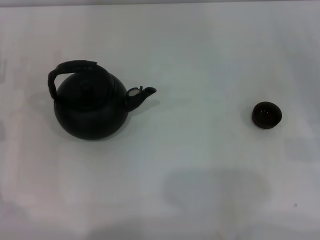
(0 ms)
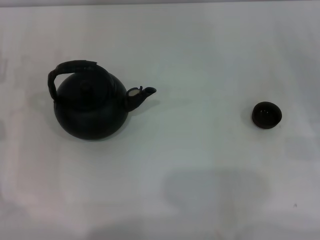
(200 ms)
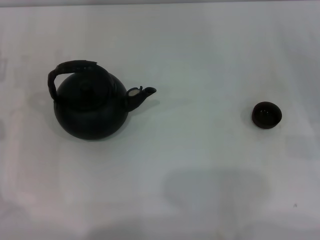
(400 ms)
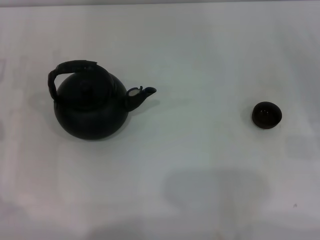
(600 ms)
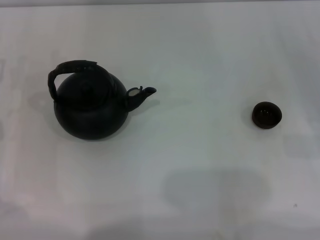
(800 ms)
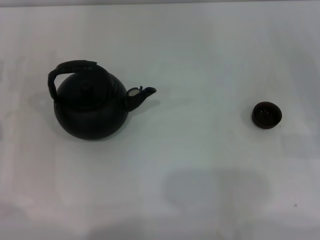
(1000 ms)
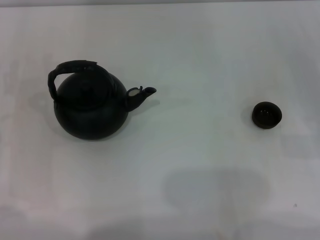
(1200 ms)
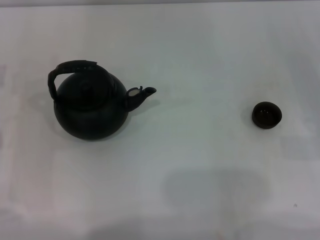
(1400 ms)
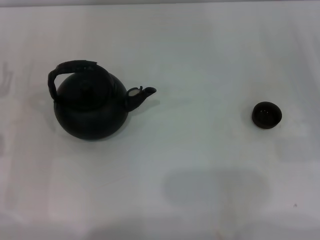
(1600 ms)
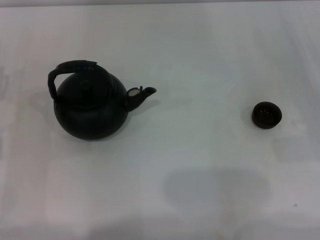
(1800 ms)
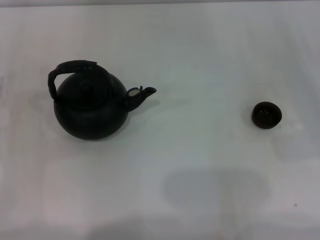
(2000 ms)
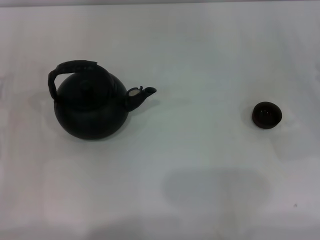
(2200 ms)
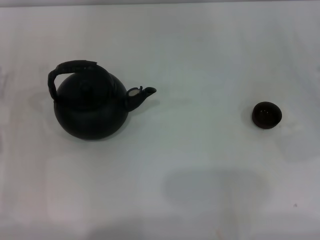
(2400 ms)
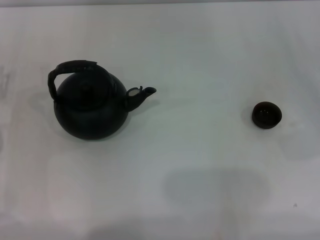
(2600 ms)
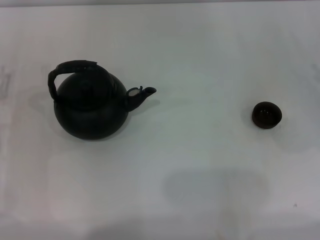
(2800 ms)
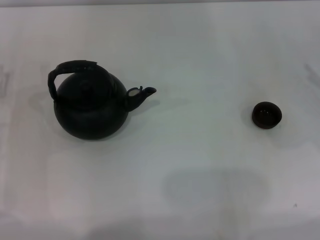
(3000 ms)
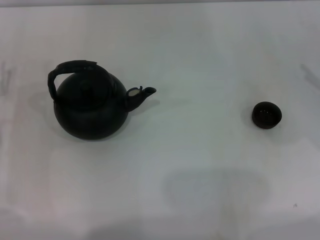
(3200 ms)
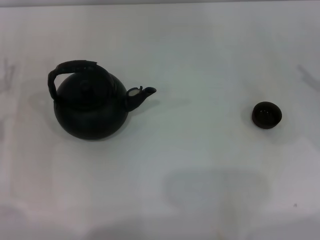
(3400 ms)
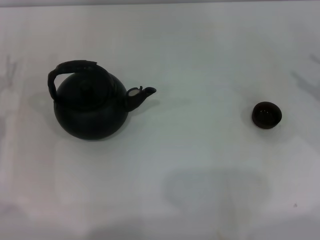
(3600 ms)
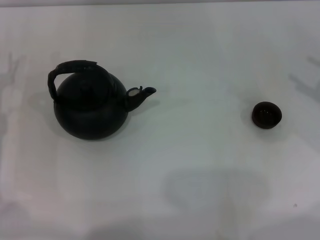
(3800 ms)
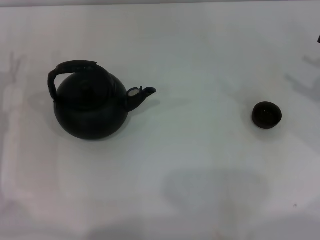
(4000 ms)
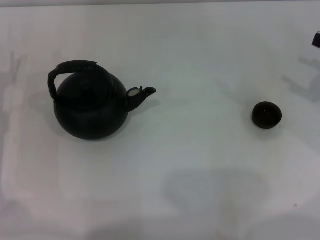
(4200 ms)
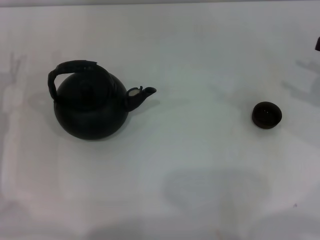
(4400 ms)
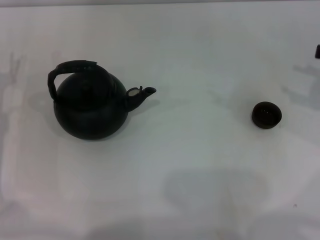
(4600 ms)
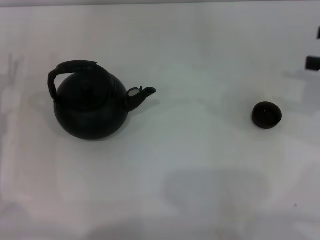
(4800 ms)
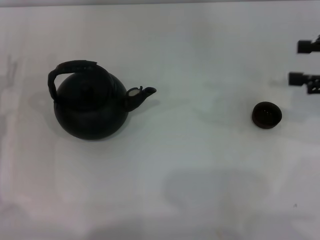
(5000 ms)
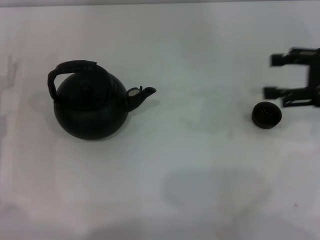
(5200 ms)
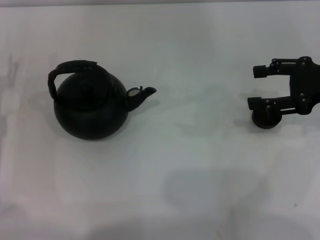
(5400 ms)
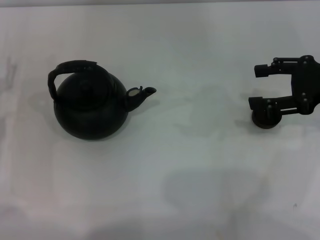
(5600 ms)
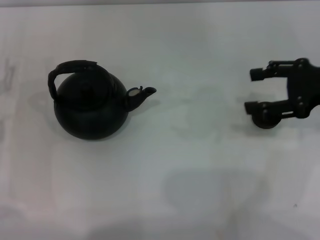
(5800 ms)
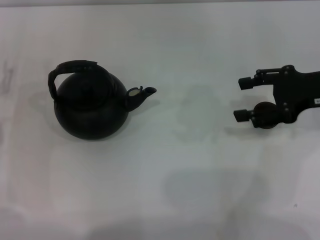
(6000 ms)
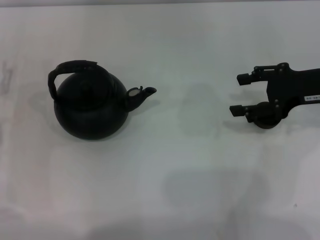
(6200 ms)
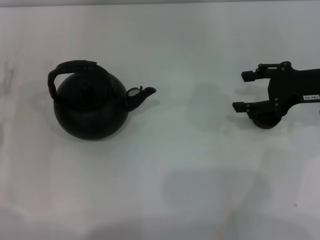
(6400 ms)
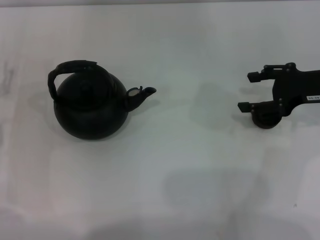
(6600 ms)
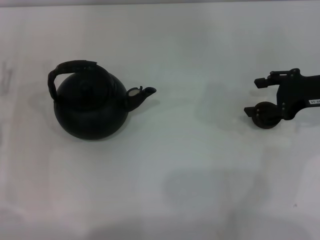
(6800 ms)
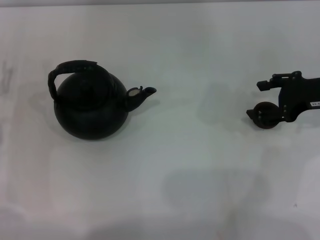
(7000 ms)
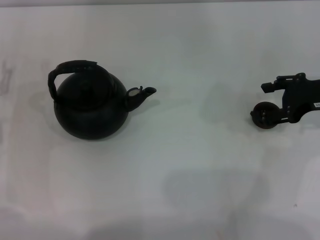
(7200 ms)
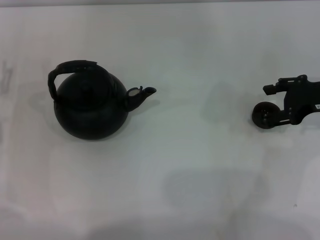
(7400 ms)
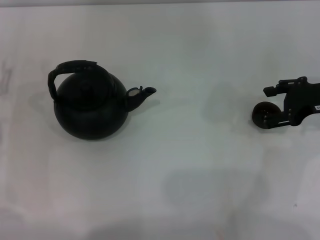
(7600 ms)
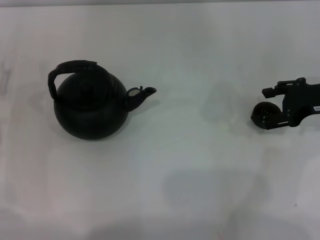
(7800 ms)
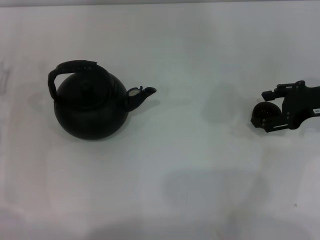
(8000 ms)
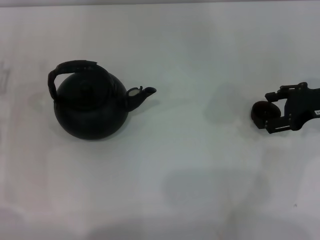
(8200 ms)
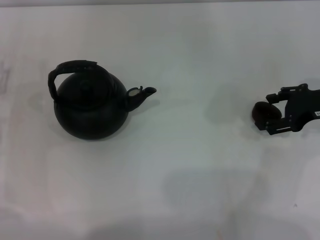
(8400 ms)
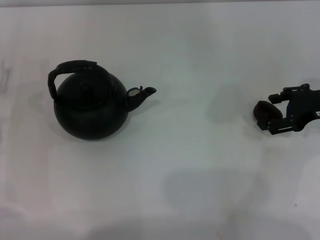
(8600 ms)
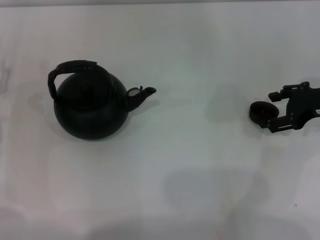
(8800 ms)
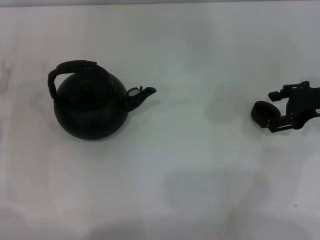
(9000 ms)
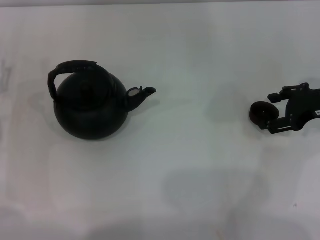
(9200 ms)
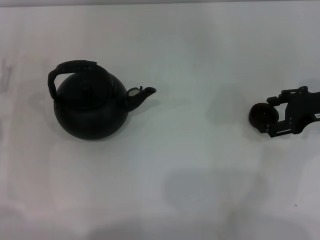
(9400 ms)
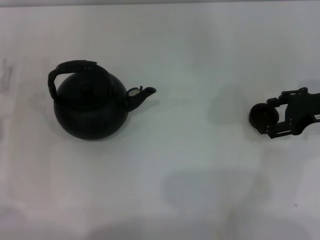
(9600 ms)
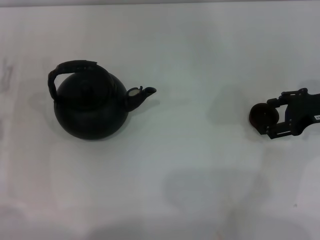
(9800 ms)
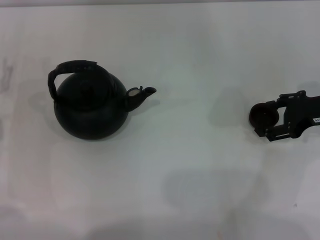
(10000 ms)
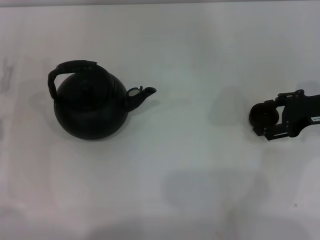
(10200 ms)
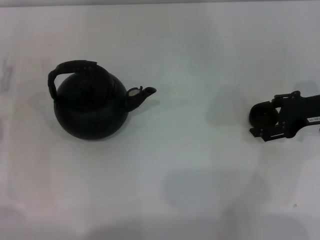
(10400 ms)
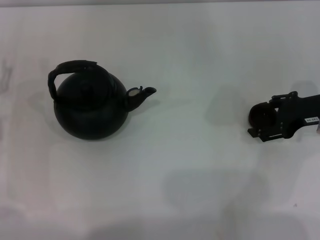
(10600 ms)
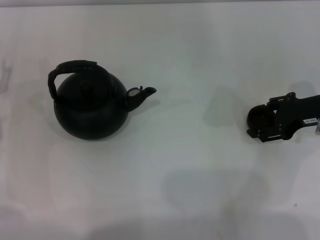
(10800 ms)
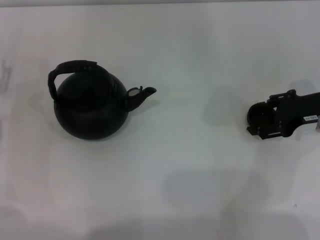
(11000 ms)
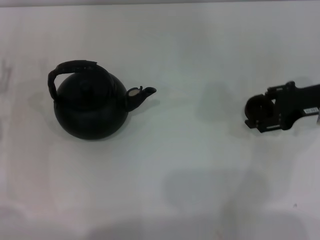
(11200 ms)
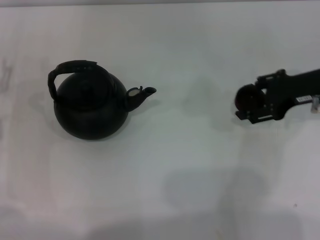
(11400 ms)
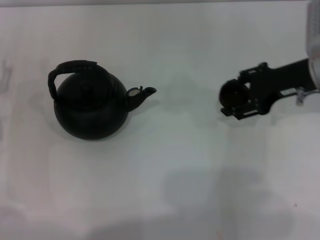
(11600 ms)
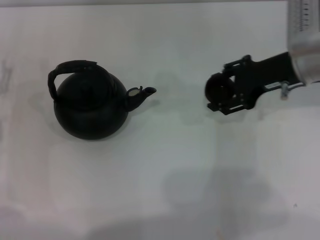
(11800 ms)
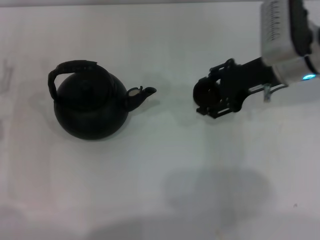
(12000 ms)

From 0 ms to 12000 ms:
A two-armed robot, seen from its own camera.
Task of the whole recording: Grasp the handle of the teapot with one hand and pour tea into the teacup.
Step, from 0 ms to 11400 ms: Pick up the teacup with the right gripper.
From 4400 ms to 6000 ms: The right gripper shifts approximately 10 cm to the left.
From 6000 ms to 7600 ms: There are only small adjustments of the grippers.
From 7600 ms to 9000 ms: Neither gripper changes place.
From 9000 ms to 10400 ms: The grippers make only small movements.
From 10400 ms to 12000 ms: The right gripper is displaced to the left by about 10 cm.

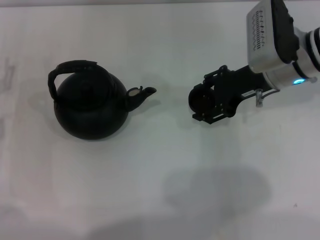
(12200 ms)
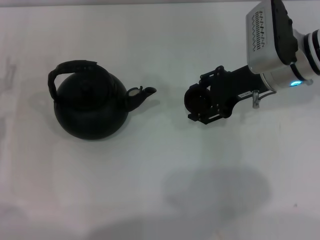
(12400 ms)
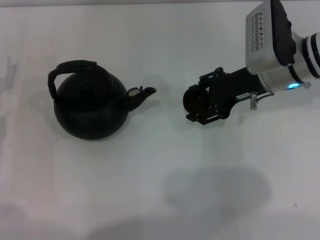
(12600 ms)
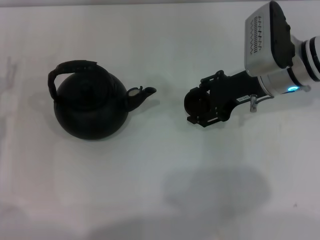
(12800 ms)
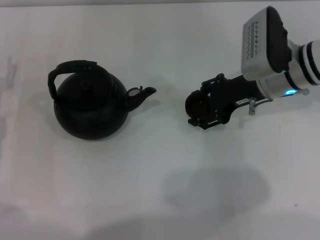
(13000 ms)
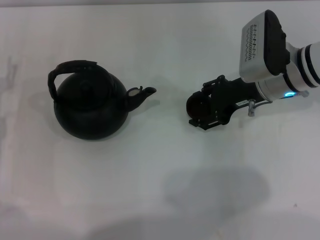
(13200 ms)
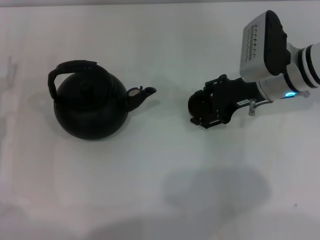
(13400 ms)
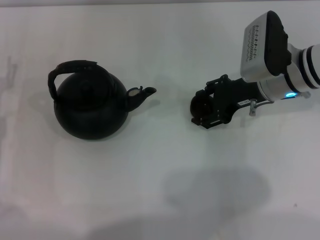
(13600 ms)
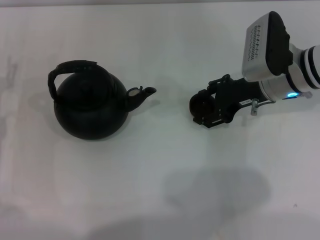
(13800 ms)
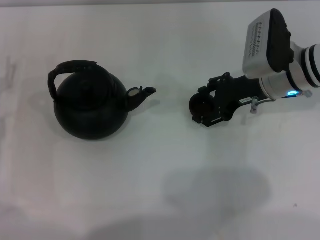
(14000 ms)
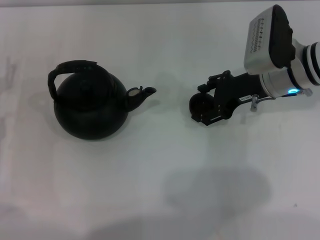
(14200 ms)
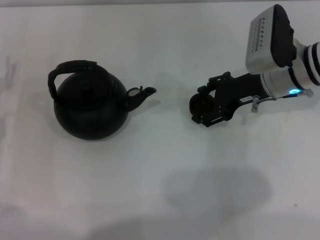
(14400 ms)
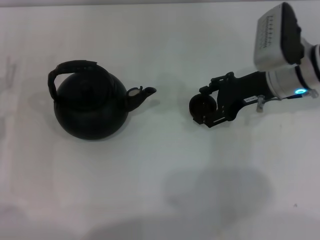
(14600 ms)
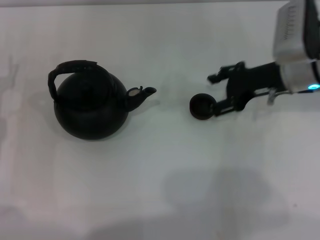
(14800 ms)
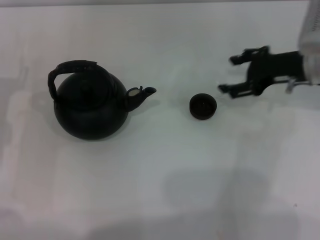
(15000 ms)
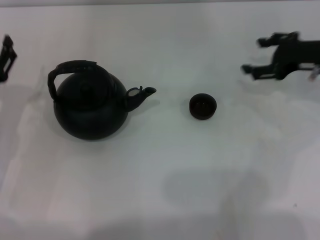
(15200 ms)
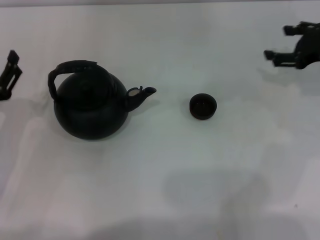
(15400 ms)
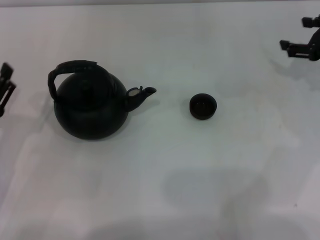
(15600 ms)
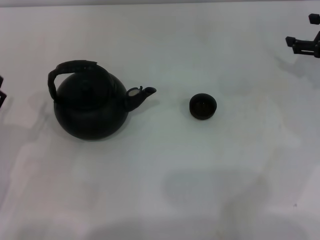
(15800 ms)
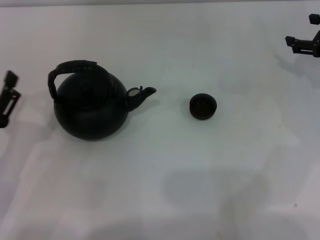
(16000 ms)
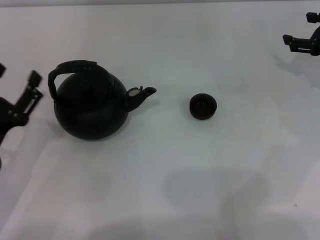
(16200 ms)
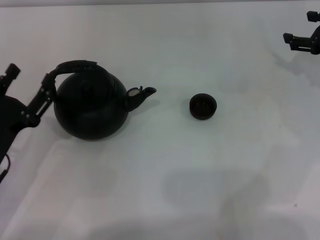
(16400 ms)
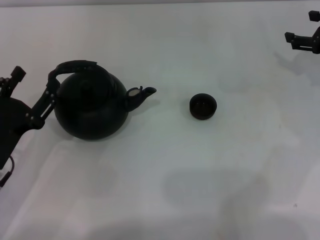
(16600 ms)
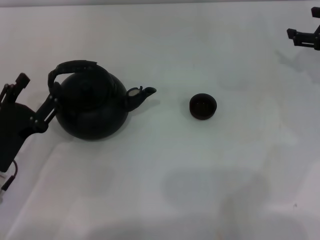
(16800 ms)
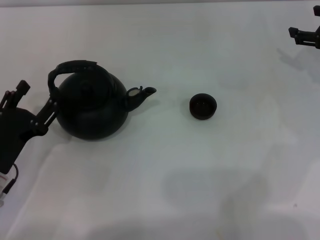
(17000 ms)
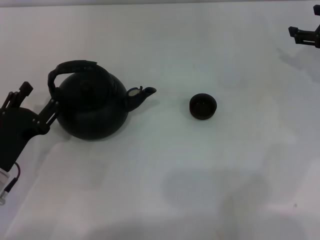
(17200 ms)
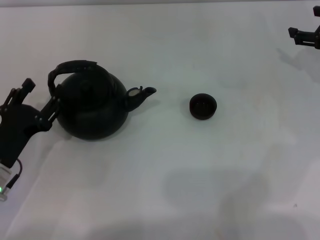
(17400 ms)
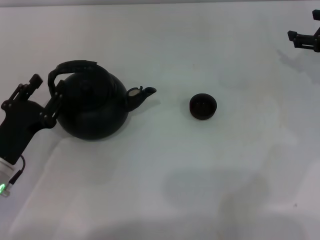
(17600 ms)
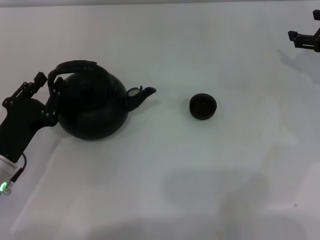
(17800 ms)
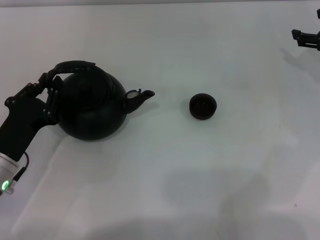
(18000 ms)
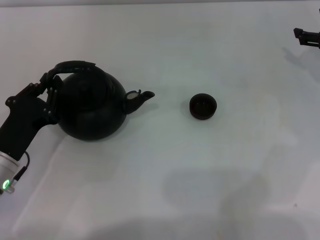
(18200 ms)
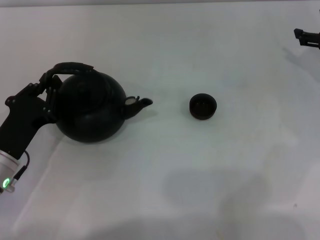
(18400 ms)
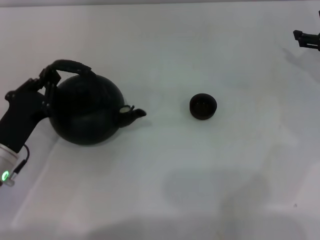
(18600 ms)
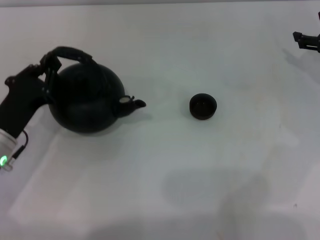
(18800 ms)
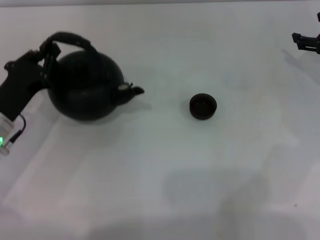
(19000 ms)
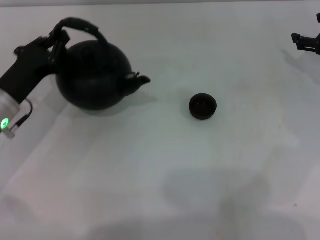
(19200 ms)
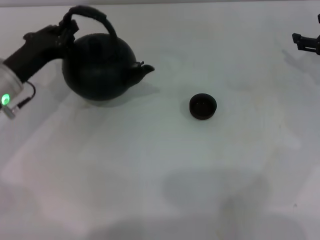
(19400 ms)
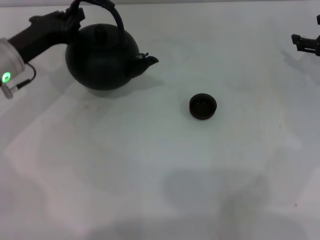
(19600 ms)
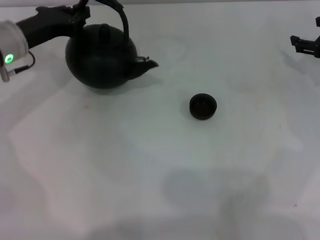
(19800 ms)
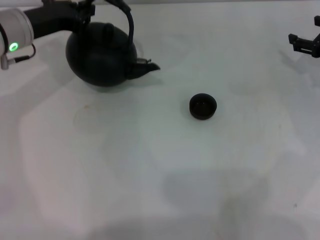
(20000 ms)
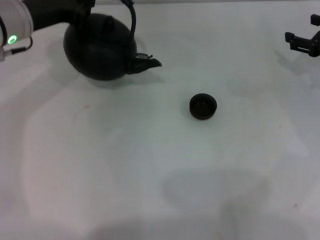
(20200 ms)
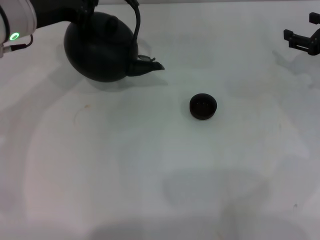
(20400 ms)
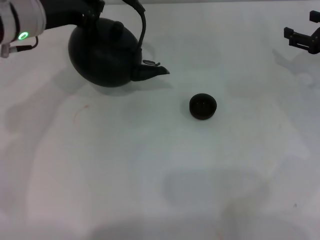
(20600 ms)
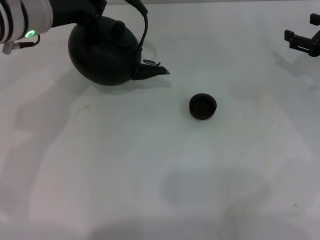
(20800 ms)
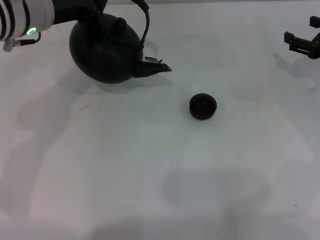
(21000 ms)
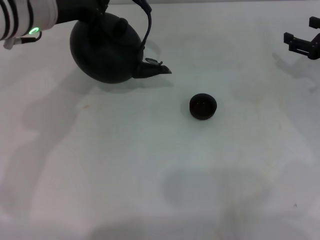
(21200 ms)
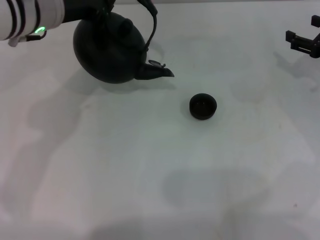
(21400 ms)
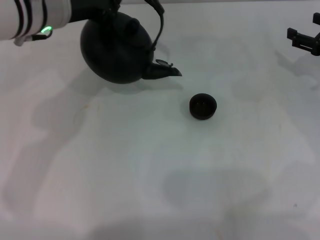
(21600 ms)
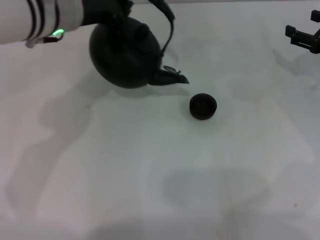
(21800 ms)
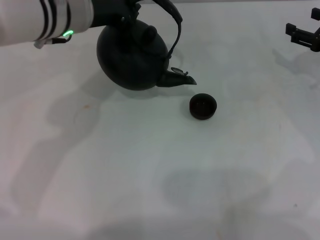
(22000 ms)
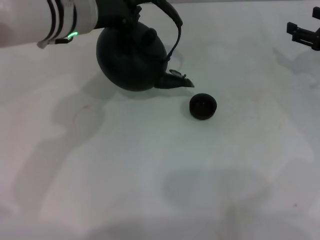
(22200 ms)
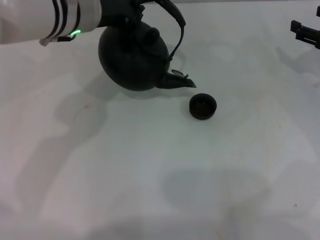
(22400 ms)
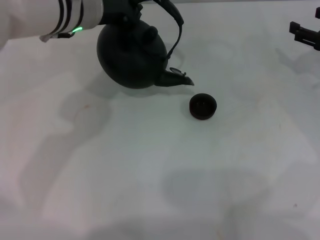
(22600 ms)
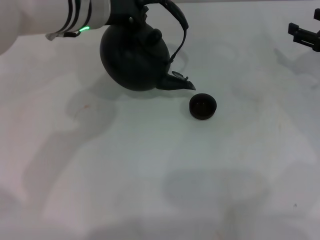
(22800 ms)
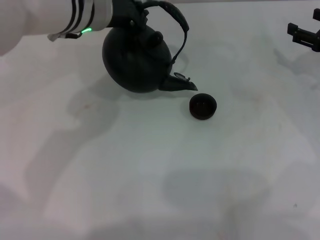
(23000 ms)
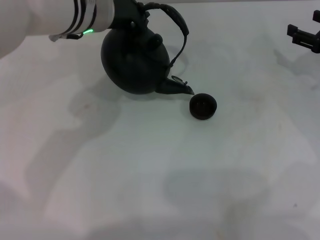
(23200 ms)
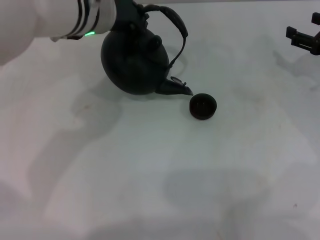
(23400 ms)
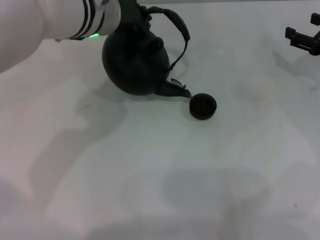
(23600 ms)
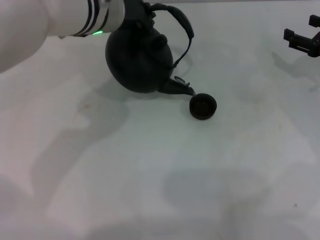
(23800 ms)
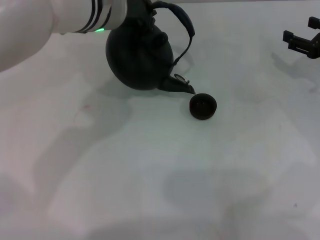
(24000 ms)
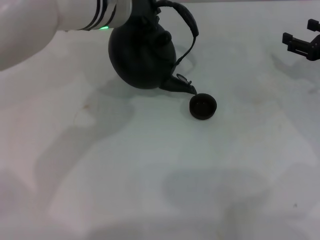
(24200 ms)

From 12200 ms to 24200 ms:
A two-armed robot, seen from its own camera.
Task of the whole recording: Grasp the handle of the teapot with one hand and pour tea into the teacup.
Step, from 12200 ms to 14800 ms: Place the teacup in the center of view with the right gripper.
Step, from 15200 ms to 20600 ms: Pick up the teapot with the left gripper.
From 12200 ms to 13800 ms: The grippers make only small movements.
From 13800 ms to 15200 ms: The right gripper travels to the right by roughly 10 cm.
From 15200 ms to 16600 ms: The right gripper moves to the right, some 5 cm; the left gripper shifts some 5 cm backward.
From 16600 ms to 18200 ms: The left gripper closes its fingers.
From 18200 ms to 19800 ms: The left gripper shifts approximately 20 cm forward and upward.
From 19800 ms to 21200 ms: The left gripper shifts about 10 cm upward and to the right.
From 21200 ms to 22600 ms: The left gripper is displaced to the right by approximately 5 cm.
From 22600 ms to 24200 ms: The grippers stay close to where they were, moving slightly.
